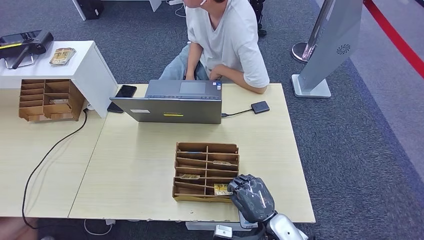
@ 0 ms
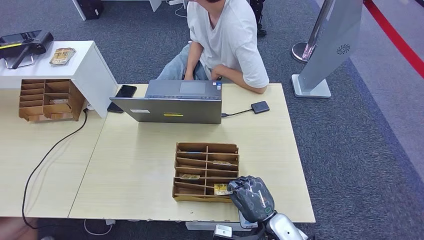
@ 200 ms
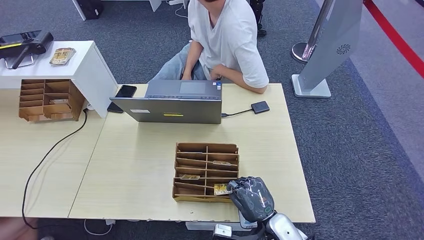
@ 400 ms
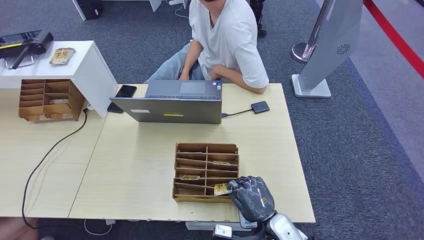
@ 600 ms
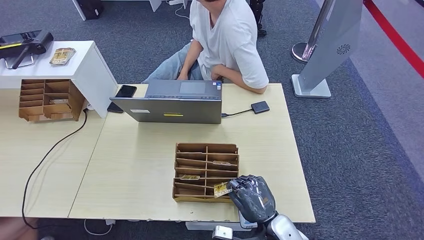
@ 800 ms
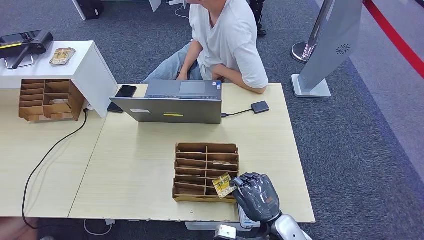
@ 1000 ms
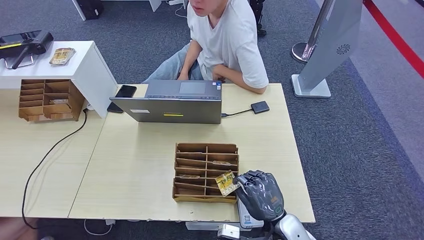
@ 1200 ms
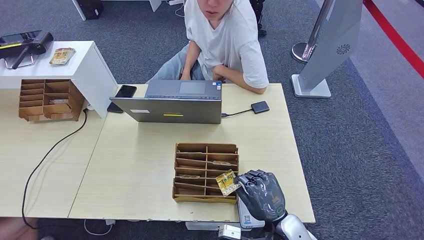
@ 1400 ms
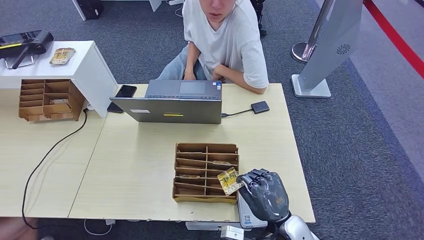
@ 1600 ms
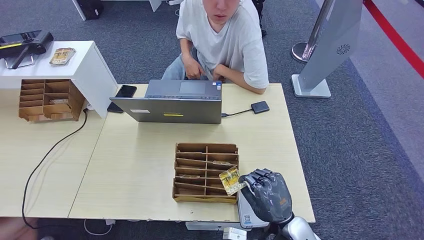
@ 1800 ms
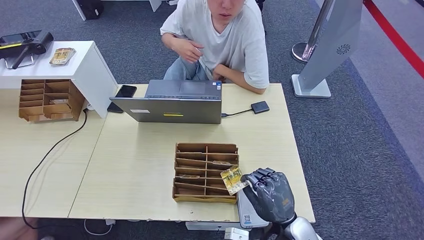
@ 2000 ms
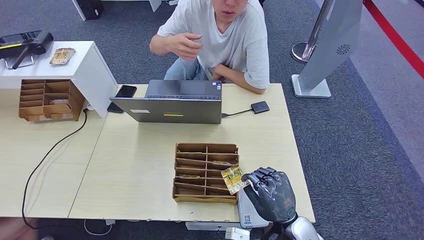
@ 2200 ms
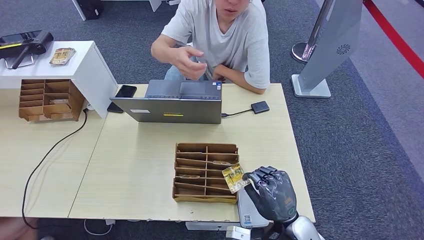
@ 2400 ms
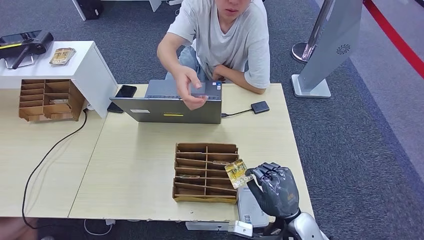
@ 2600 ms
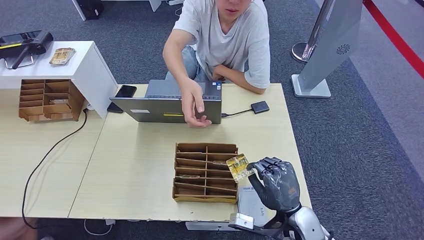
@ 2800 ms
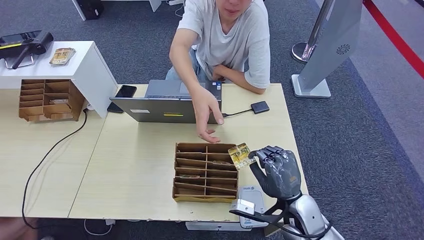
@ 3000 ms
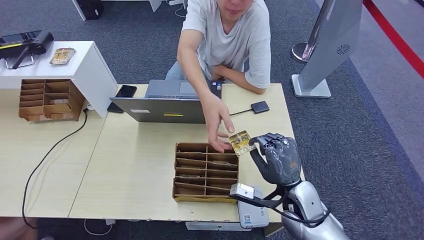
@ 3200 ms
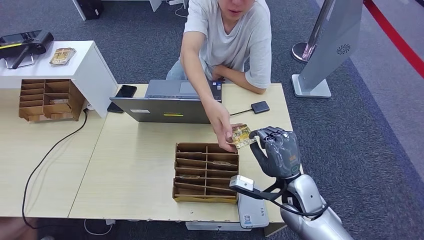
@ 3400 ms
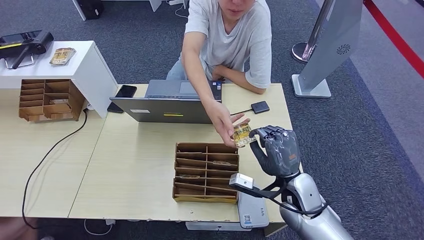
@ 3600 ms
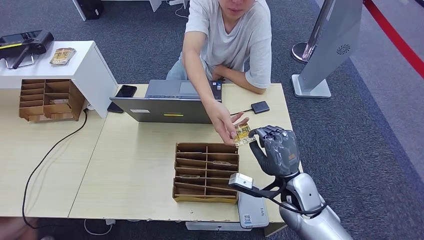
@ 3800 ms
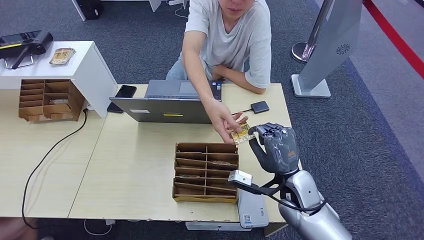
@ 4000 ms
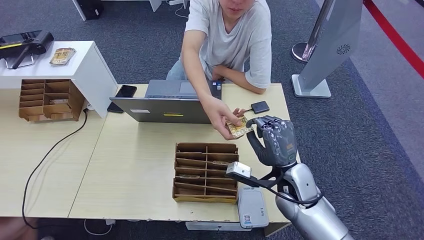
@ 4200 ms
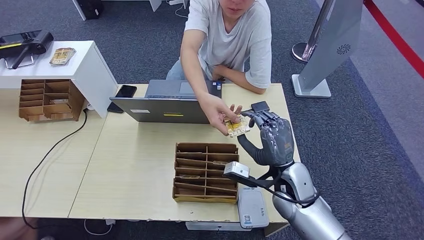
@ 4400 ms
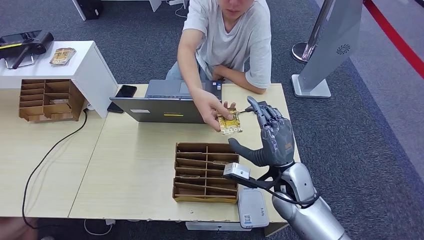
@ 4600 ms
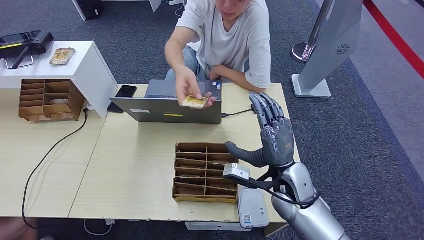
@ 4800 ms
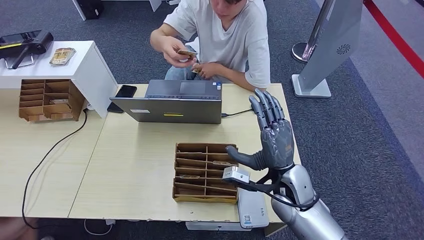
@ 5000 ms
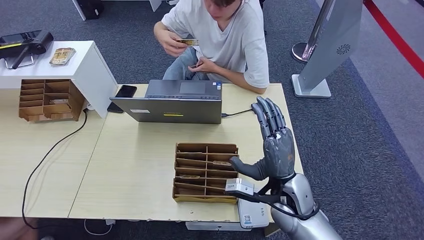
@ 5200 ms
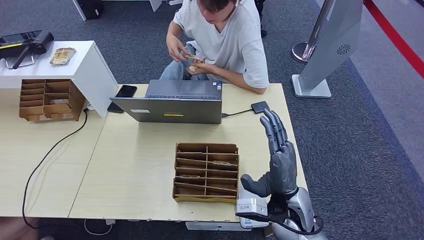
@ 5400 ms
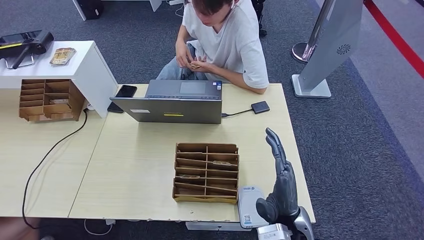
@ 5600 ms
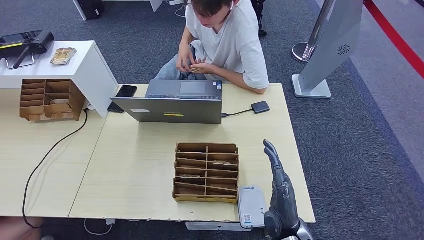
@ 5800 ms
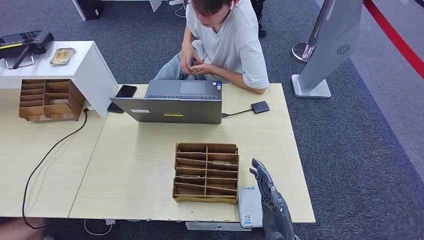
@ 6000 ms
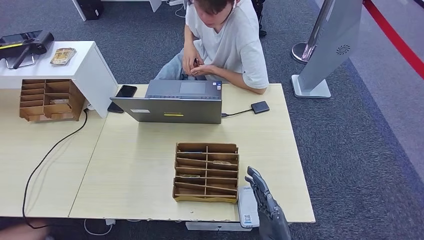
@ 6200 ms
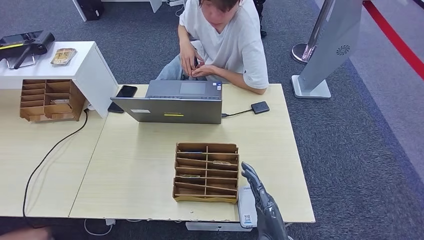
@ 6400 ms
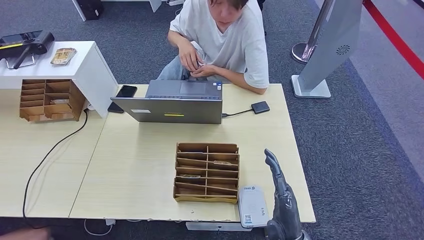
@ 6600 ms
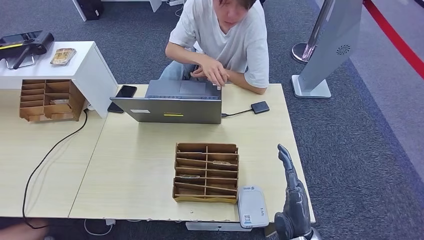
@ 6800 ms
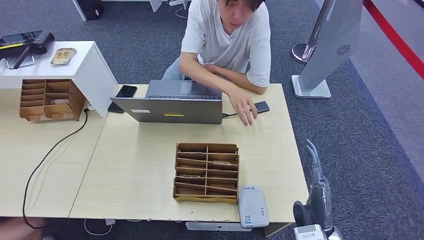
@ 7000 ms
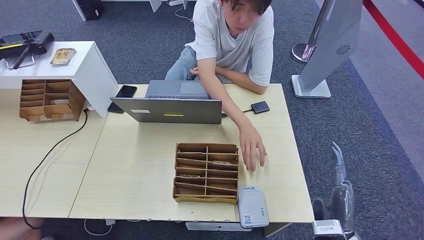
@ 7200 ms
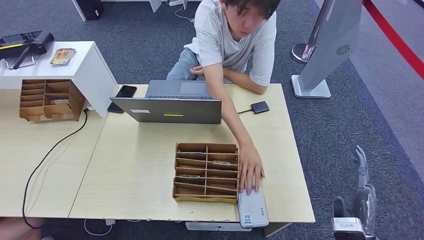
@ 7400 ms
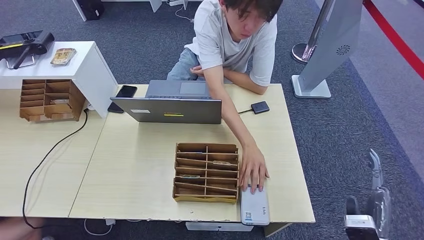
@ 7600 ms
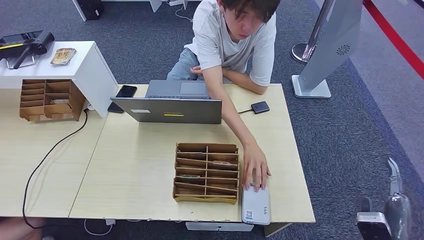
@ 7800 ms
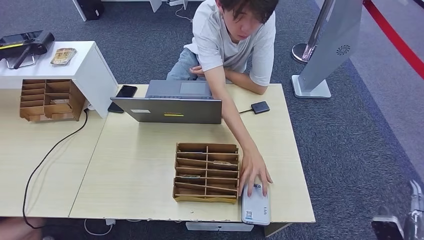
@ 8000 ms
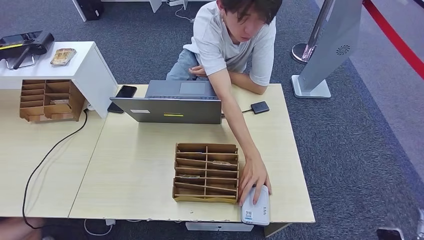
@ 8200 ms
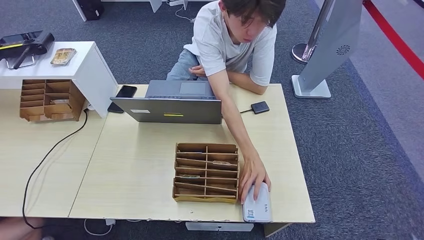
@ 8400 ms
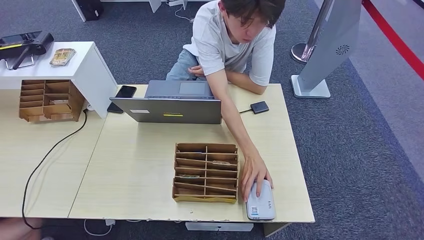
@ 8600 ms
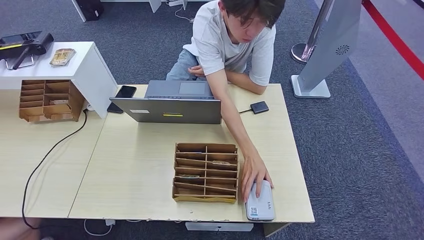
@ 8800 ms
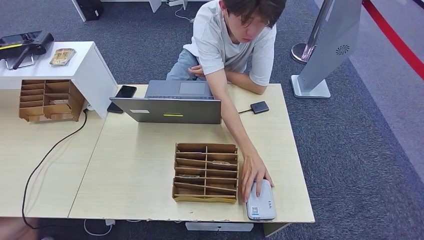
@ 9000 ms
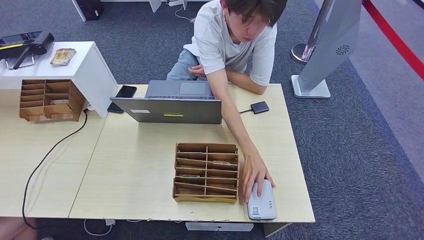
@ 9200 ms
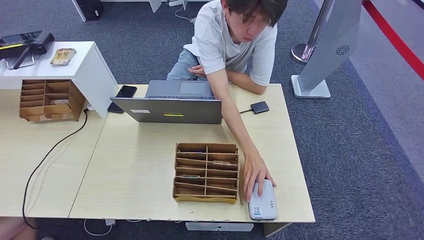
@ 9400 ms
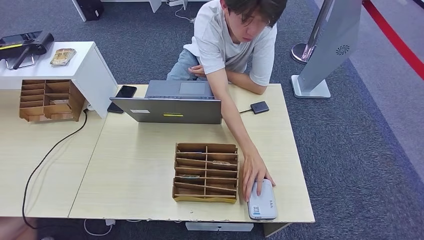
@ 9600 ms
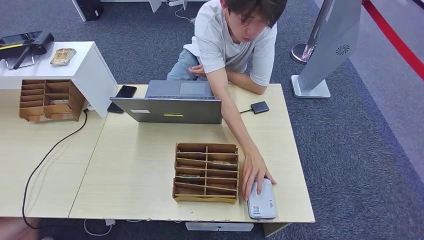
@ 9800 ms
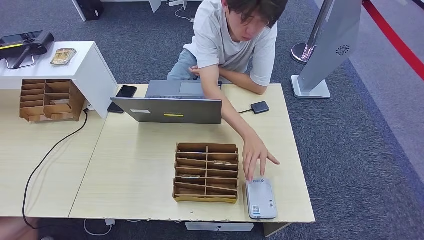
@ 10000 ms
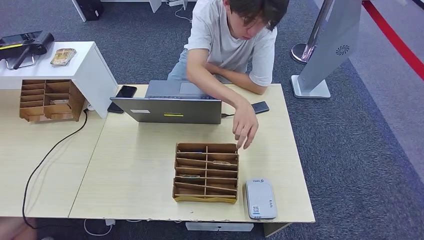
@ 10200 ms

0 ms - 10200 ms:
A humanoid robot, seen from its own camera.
Step, 0 ms - 2400 ms: Pick up the room key from the key card box.
Step, 2600 ms - 10200 ms: Hand the room key to the person.
0 ms - 1400 ms: The hands stay close to where they were, moving slightly.
1400 ms - 3000 ms: The right hand moves some 5 cm.
3000 ms - 4400 ms: The right hand heads forward, covering roughly 5 cm.
4400 ms - 5800 ms: The right hand shifts roughly 10 cm backward.
5800 ms - 7200 ms: The right hand moves to the right, roughly 10 cm.
7200 ms - 8800 ms: The right hand moves downward and backward, some 25 cm.
8800 ms - 10200 ms: The right hand goes approximately 15 cm to the left.

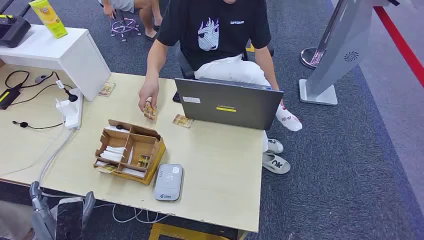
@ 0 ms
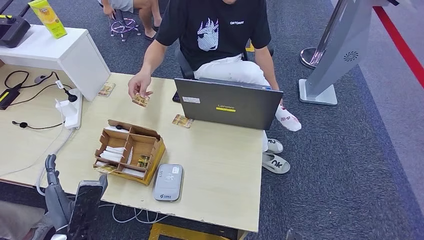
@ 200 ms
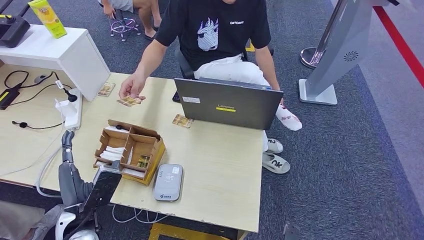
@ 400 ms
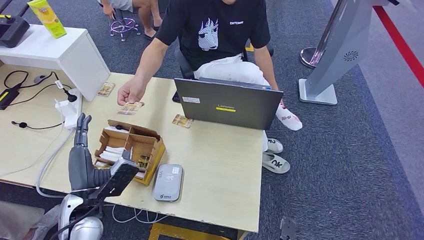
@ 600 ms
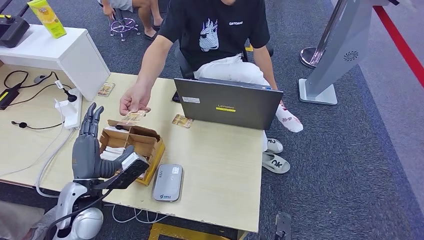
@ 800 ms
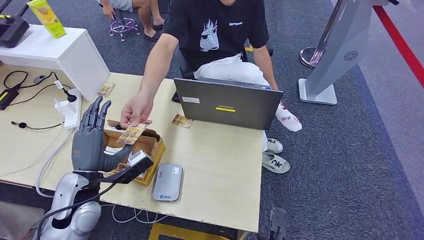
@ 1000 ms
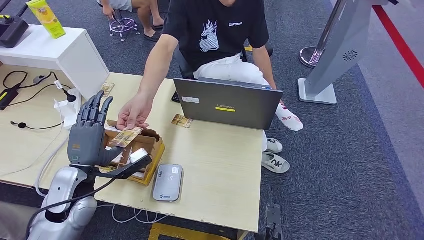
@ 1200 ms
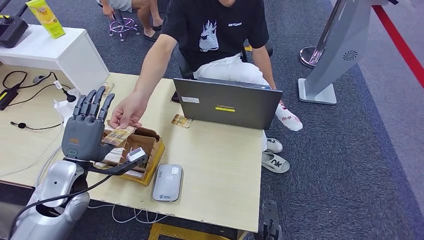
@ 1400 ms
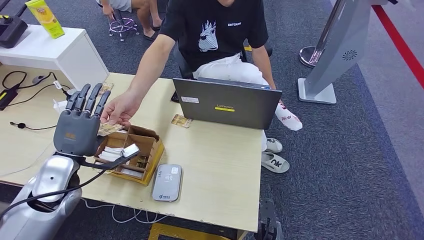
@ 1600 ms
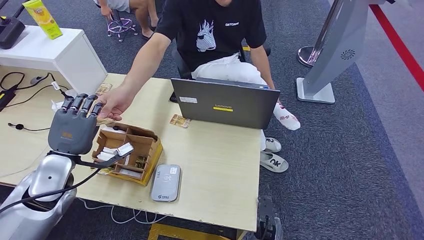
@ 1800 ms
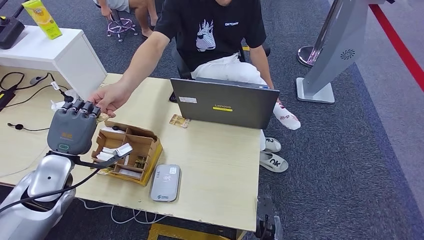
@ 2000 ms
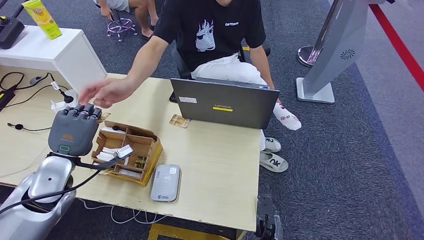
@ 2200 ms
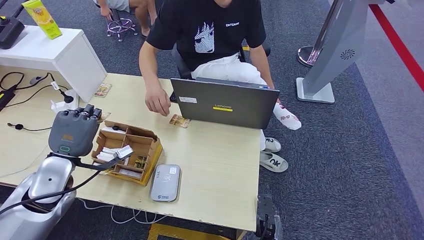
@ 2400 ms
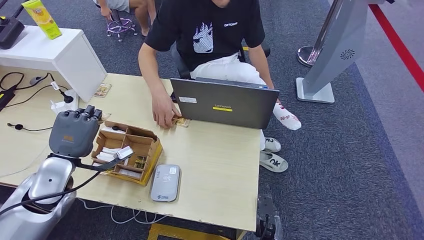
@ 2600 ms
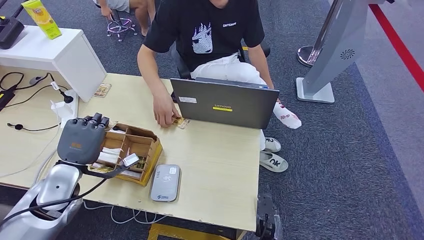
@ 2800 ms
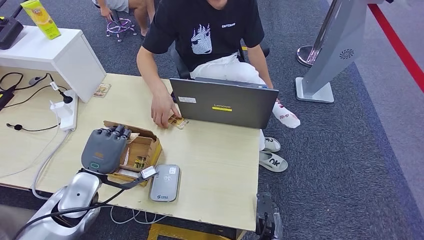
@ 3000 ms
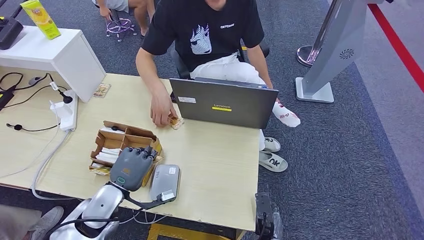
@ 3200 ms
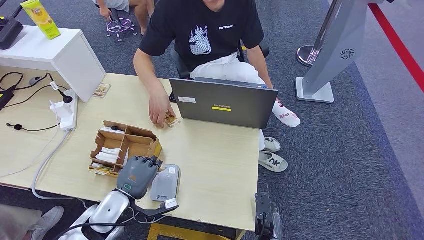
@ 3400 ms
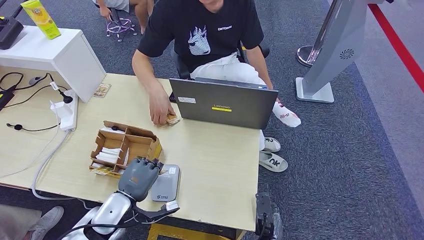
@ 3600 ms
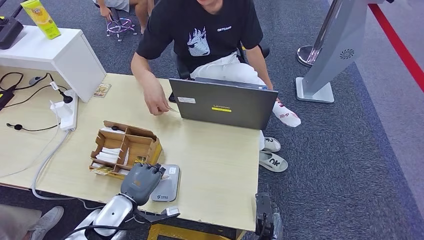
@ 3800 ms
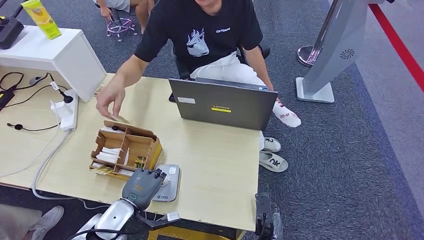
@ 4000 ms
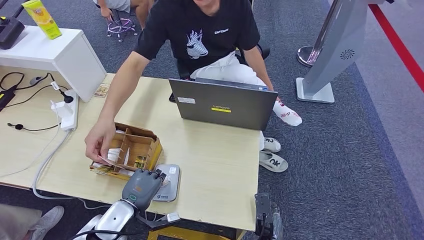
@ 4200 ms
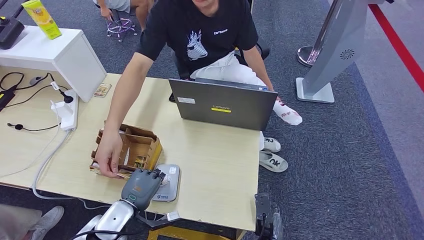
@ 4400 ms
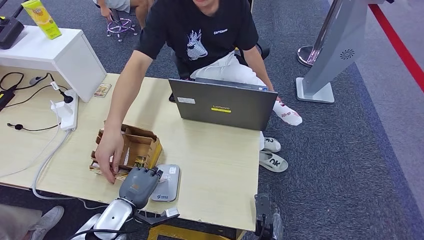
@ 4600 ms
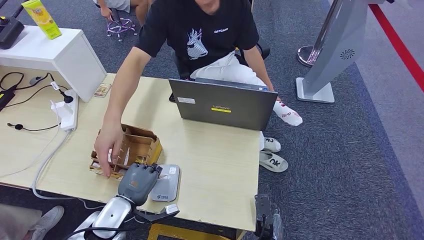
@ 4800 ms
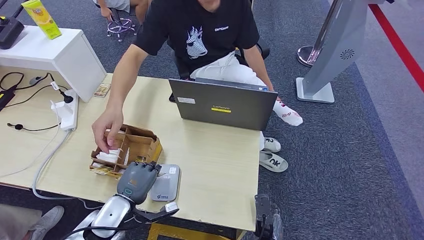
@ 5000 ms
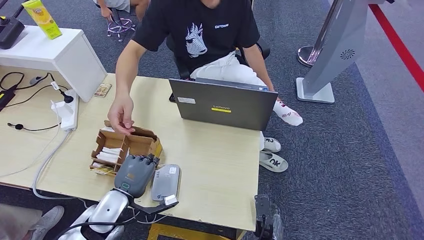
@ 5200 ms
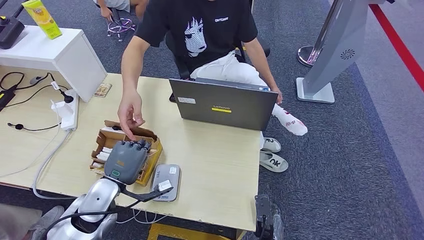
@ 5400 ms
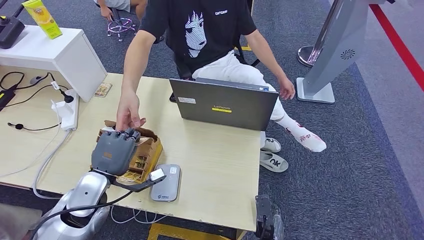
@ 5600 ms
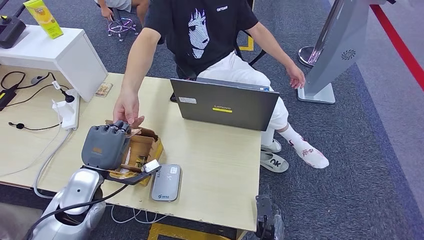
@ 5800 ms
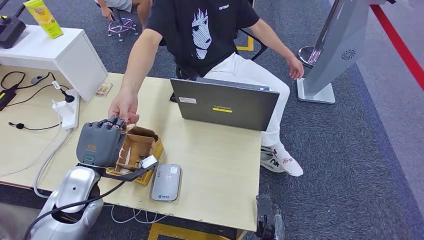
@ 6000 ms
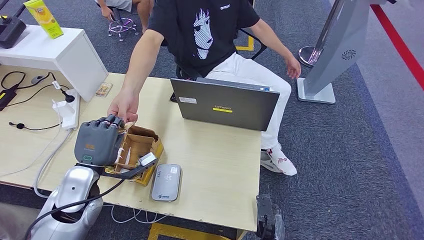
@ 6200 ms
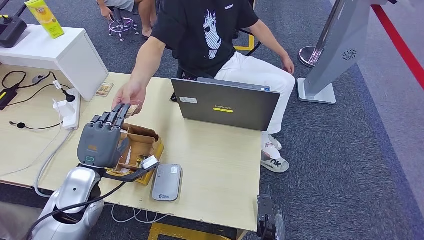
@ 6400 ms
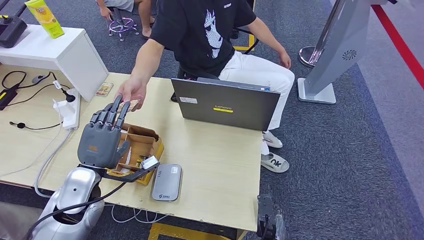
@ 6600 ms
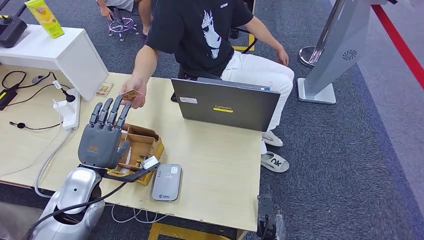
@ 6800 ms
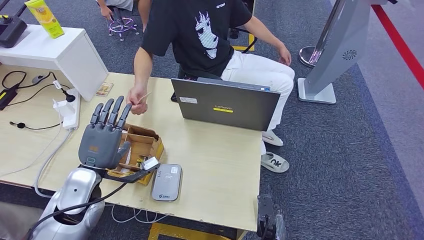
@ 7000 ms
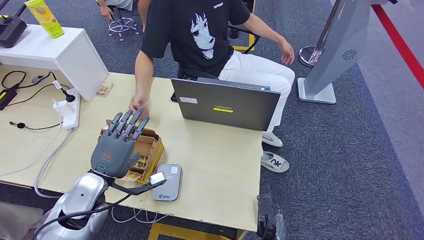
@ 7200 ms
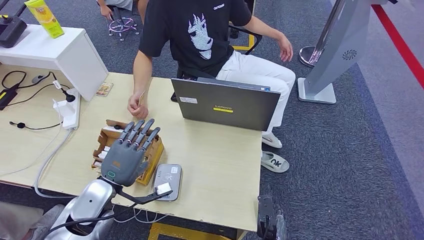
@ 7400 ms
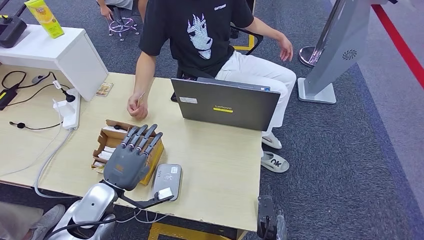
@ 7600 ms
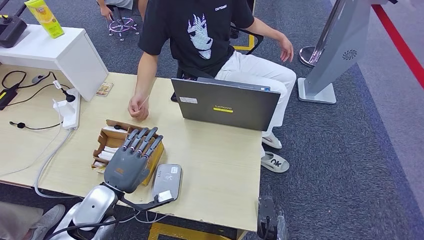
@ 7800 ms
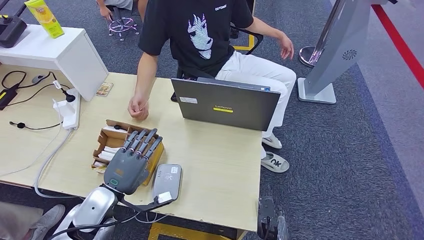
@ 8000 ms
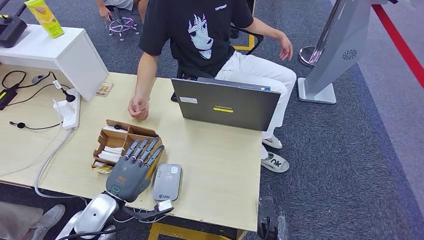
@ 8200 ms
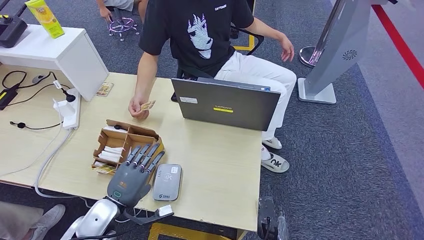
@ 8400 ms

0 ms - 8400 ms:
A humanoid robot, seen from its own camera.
Step, 0 ms - 1800 ms: Take the ID card from the person's hand.
Step, 2600 ms - 4200 ms: Place the ID card on the card reader.
Step, 4600 ms - 7000 ms: Hand the ID card to the person.
2800 ms - 4200 ms: The left hand is displaced downward and to the right by some 15 cm.
4200 ms - 5600 ms: The left hand goes about 10 cm upward.
5600 ms - 7000 ms: The hands move only a little.
7000 ms - 8400 ms: The left hand is displaced downward by some 10 cm.
